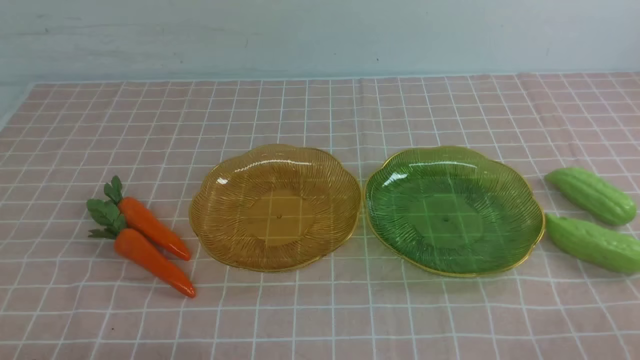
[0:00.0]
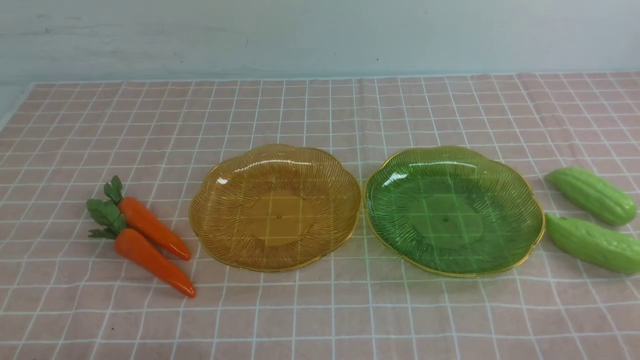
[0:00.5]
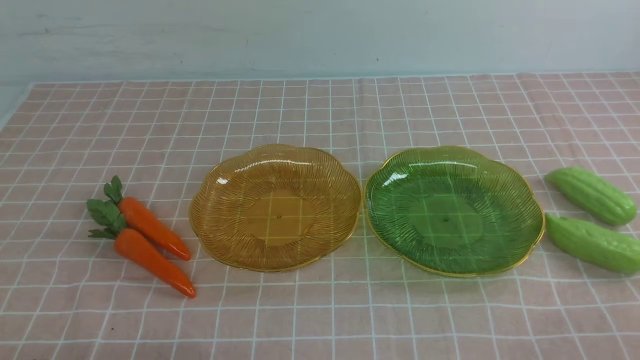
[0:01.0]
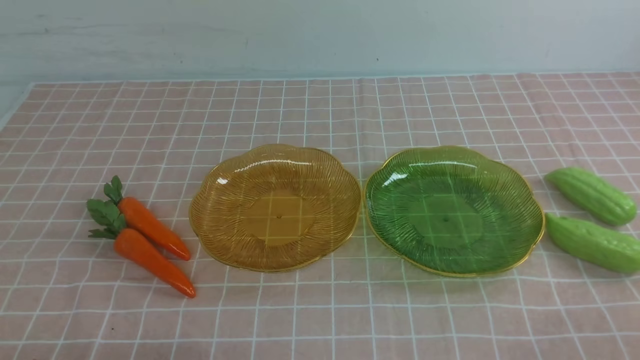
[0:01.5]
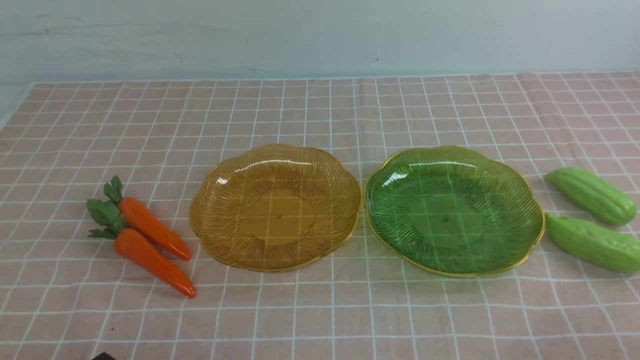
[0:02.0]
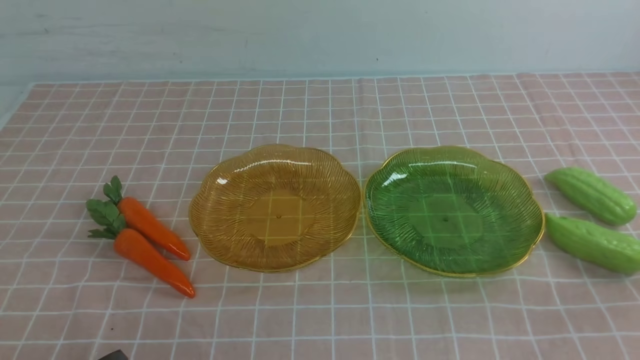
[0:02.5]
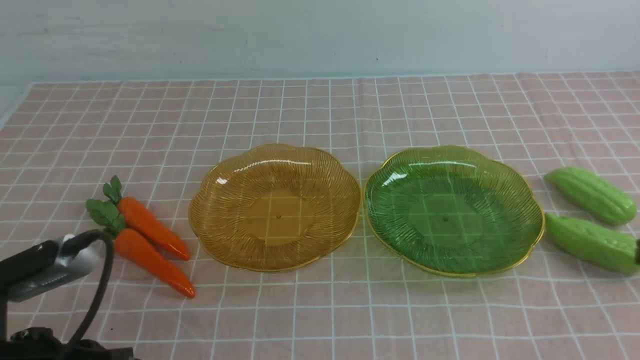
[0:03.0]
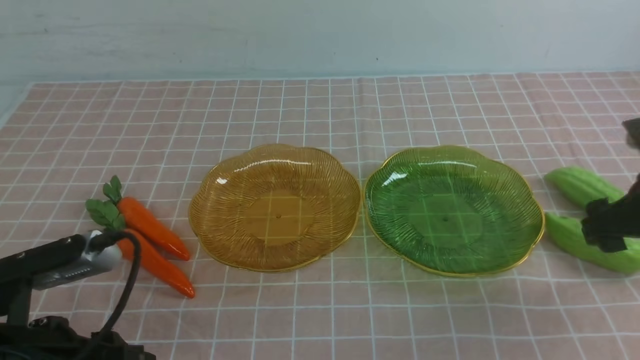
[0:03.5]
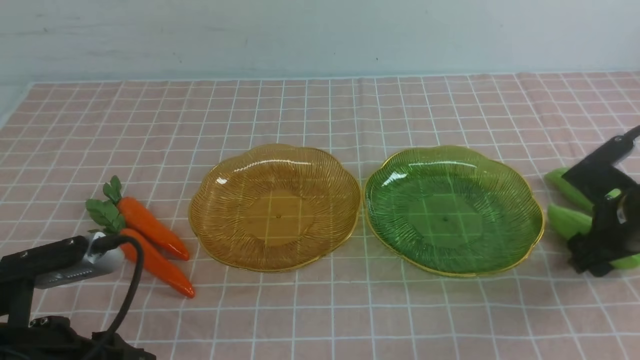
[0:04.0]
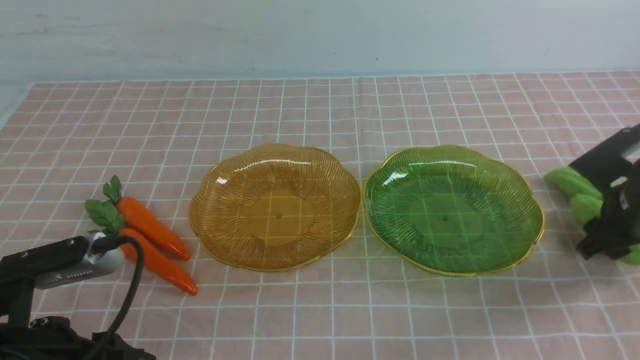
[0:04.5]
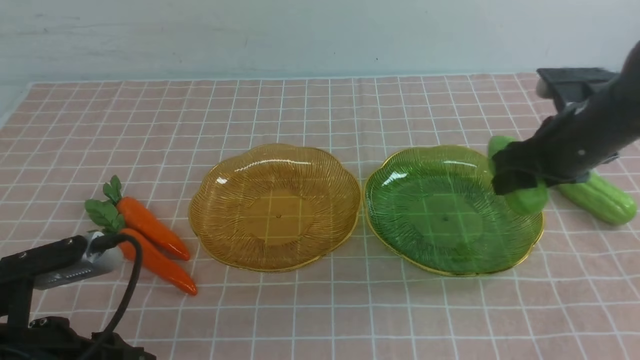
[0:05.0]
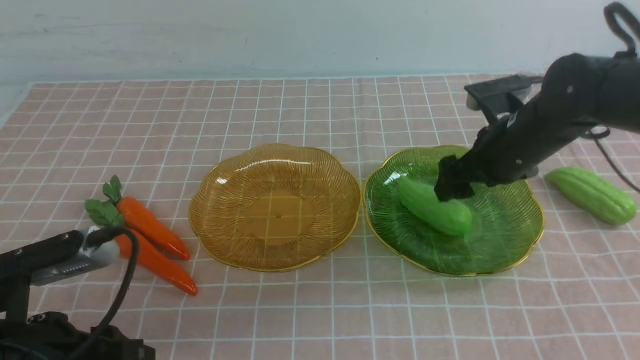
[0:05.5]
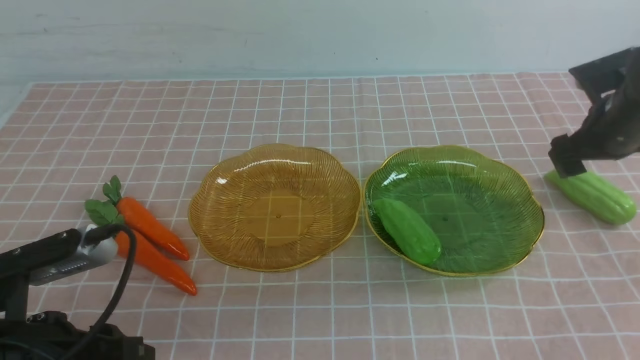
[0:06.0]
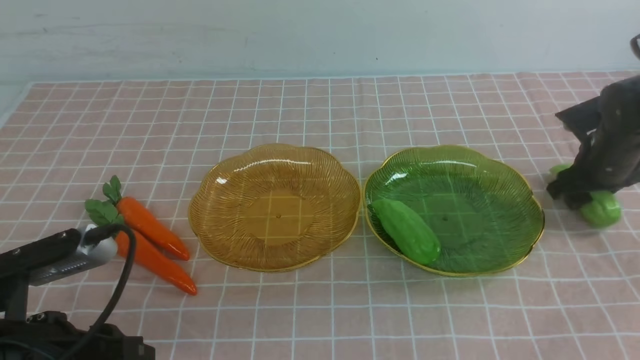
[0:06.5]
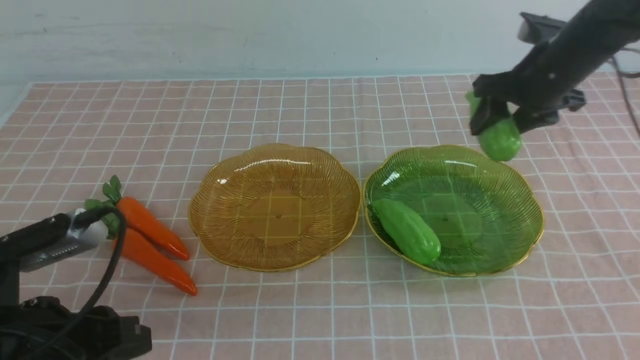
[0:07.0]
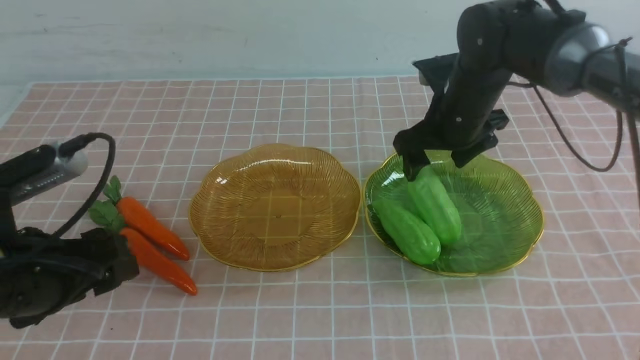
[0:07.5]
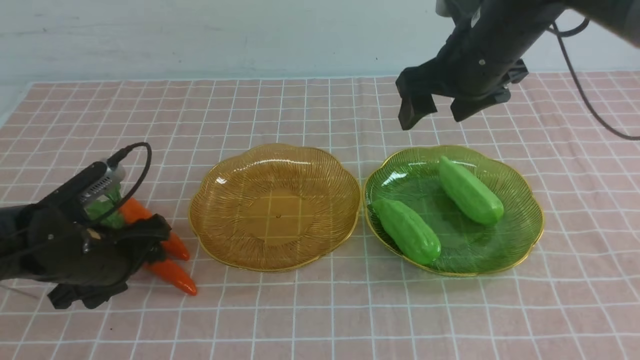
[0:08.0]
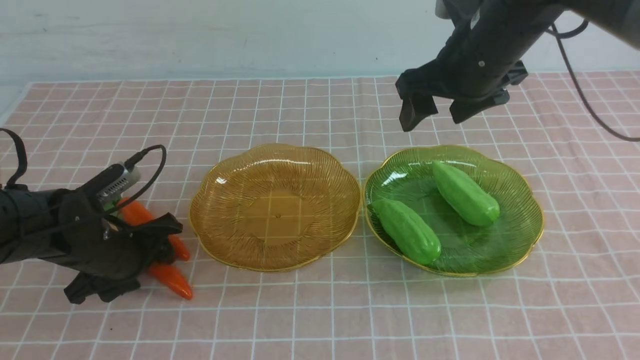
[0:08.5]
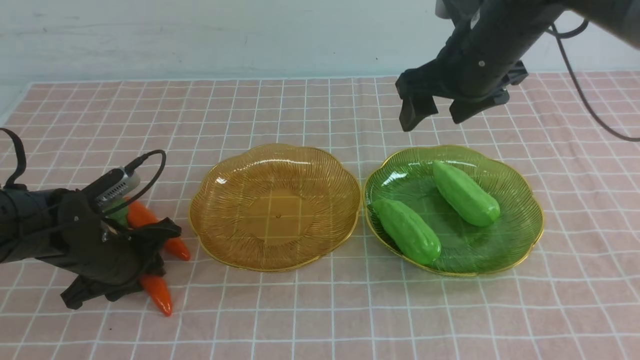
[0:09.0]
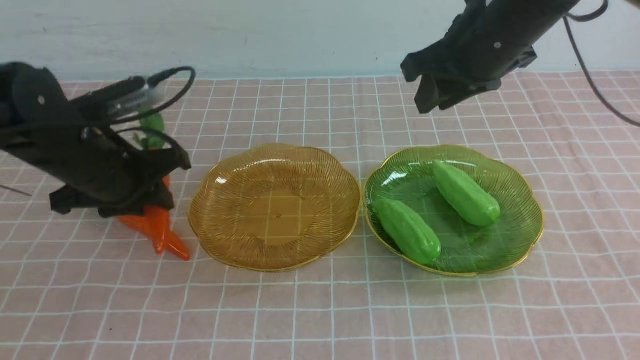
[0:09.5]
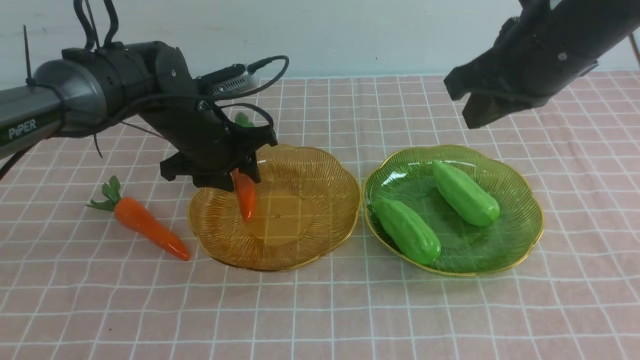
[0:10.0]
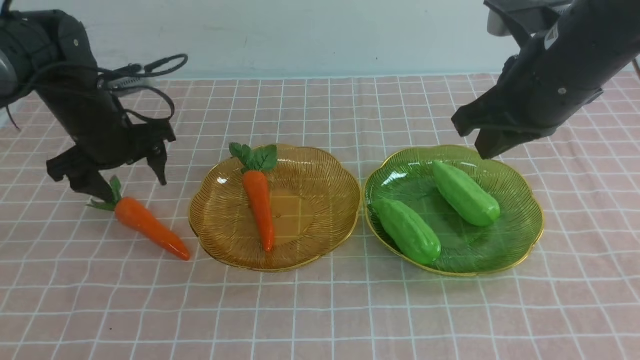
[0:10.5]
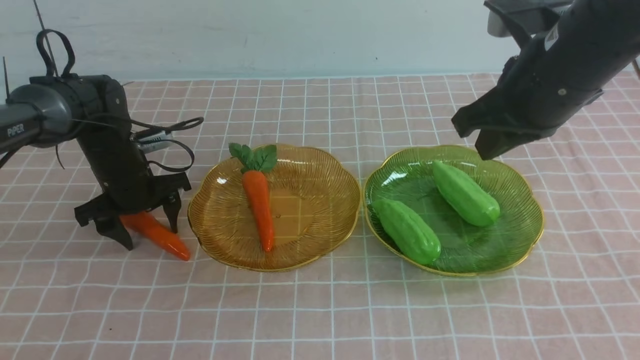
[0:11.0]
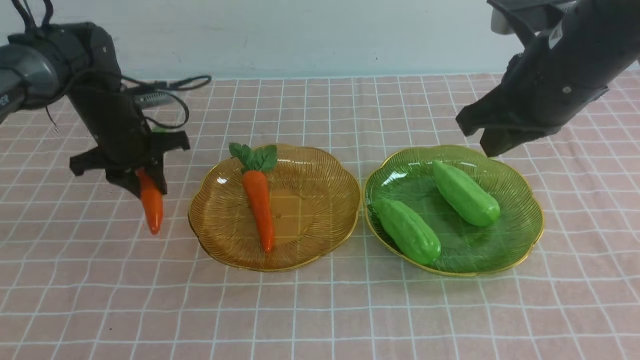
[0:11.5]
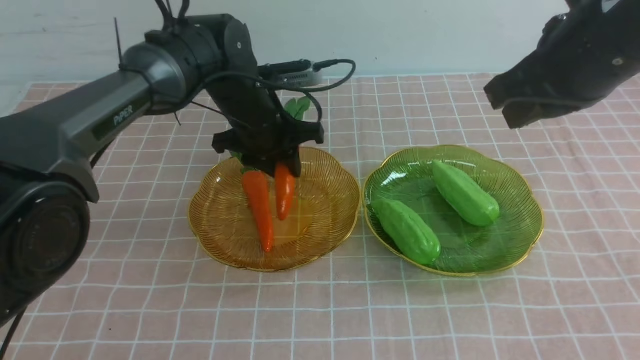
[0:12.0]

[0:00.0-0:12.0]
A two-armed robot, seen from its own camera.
Step, 0:00.0 to 0:05.0: use the right arm to grab a chayote and put it into the right plate.
Step, 0:06.0 to 0:07.0: use the right arm to grab a chayote and put it into the right plate.
0:02.0 to 0:04.0: The right gripper moves forward, some 25 cm, and opens, while the left gripper travels forward and upward by some 10 cm, and opens its fingers.
0:04.0 to 0:06.0: The right gripper heads forward, covering approximately 10 cm, and goes to the left and returns, about 10 cm each way.
0:06.0 to 0:08.0: The right gripper goes some 20 cm to the left and upward, while the left gripper is displaced forward and downward by approximately 15 cm, and opens up.
0:08.0 to 0:10.0: The left gripper heads forward and upward, covering some 15 cm, and closes and opens again. Meanwhile the right gripper is displaced backward by approximately 10 cm, and closes its fingers.
0:10.0 to 0:12.0: The left gripper heads to the right, covering approximately 10 cm, and closes up. The right gripper goes some 20 cm backward and to the right.

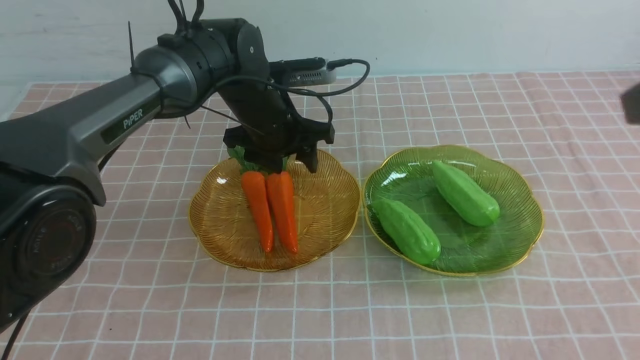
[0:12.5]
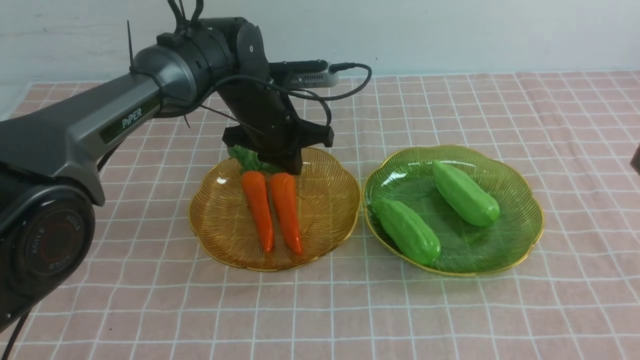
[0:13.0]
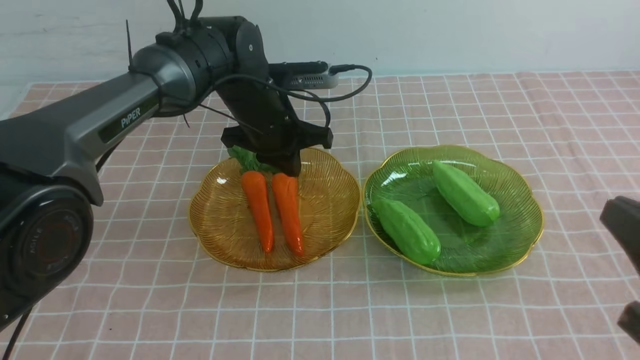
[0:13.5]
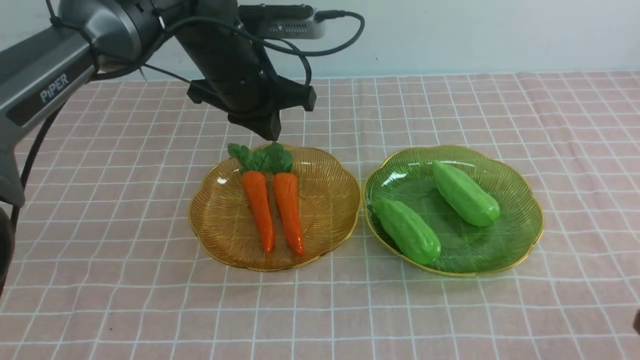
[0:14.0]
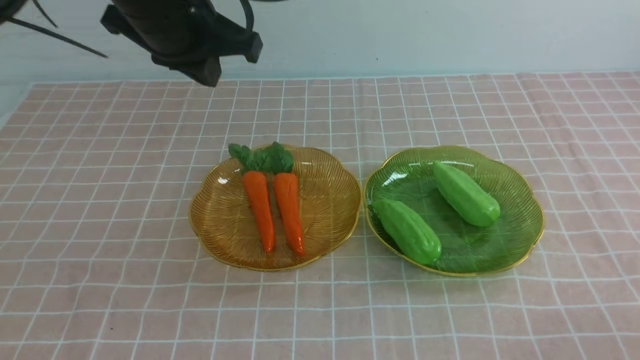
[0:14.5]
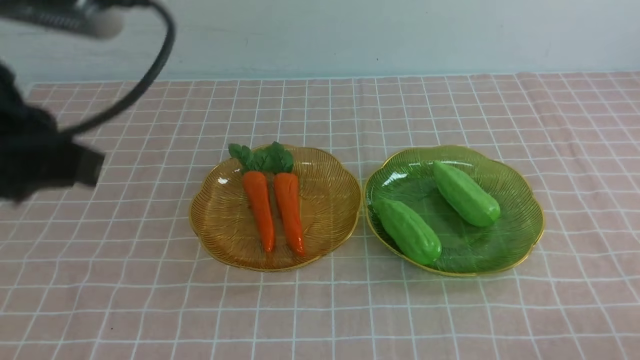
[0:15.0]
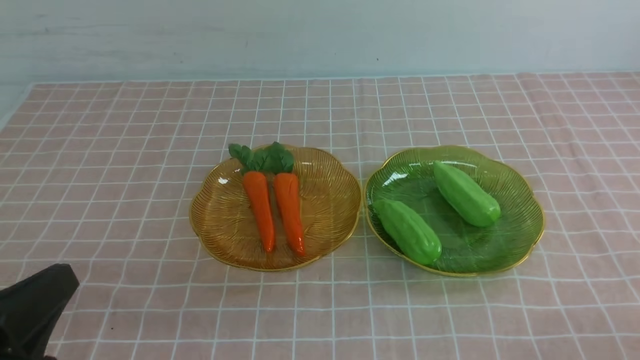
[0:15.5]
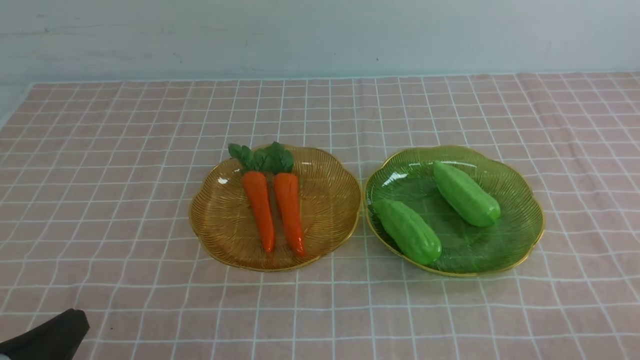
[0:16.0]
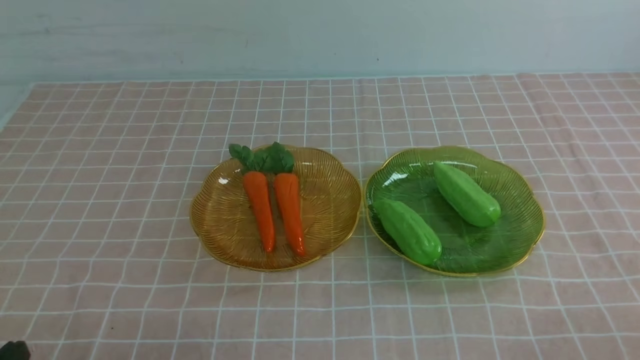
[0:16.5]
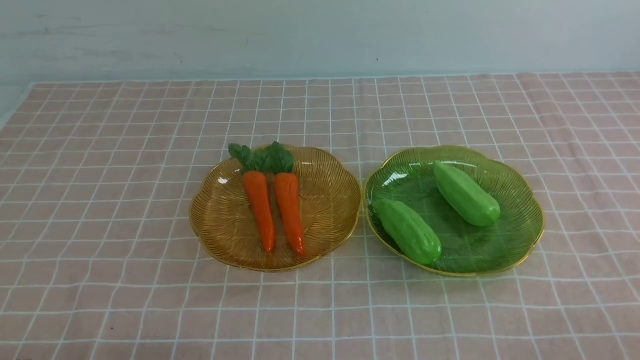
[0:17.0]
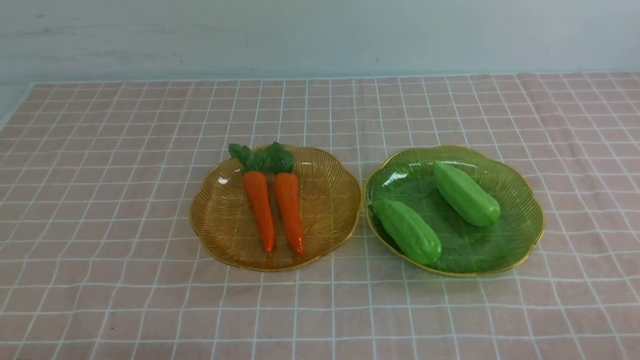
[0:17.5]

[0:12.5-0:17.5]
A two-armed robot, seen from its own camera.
0:12.5 to 0:15.0: The right gripper moves downward and backward, about 15 cm; the left gripper is displaced backward and to the left by roughly 40 cm.
0:15.0 to 0:17.5: The left gripper goes about 5 cm downward.

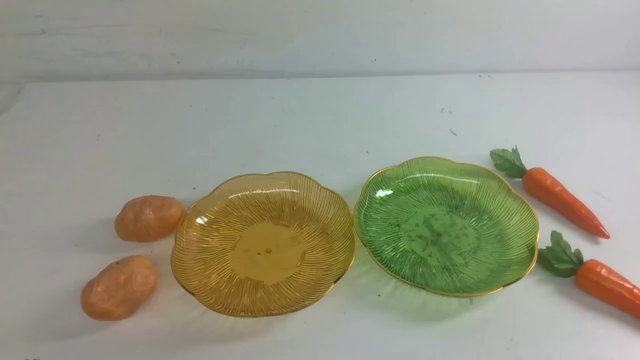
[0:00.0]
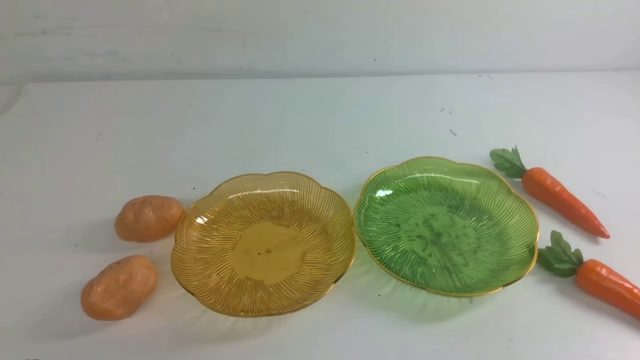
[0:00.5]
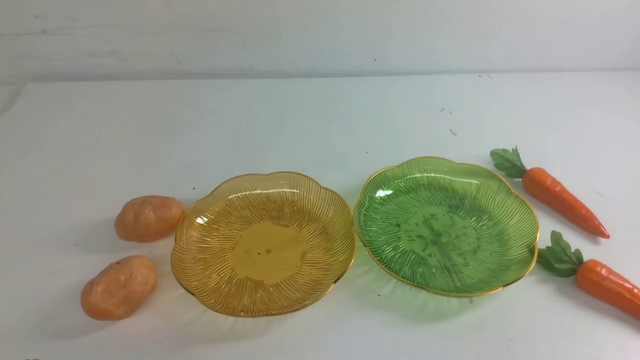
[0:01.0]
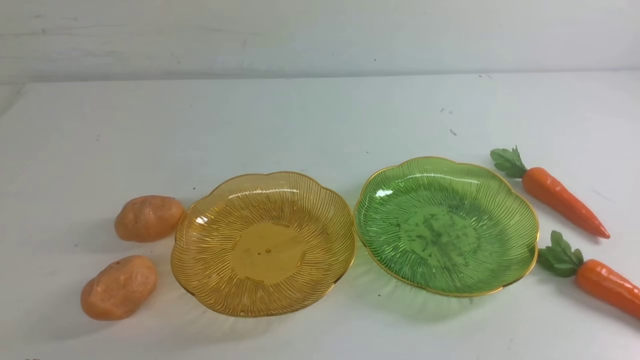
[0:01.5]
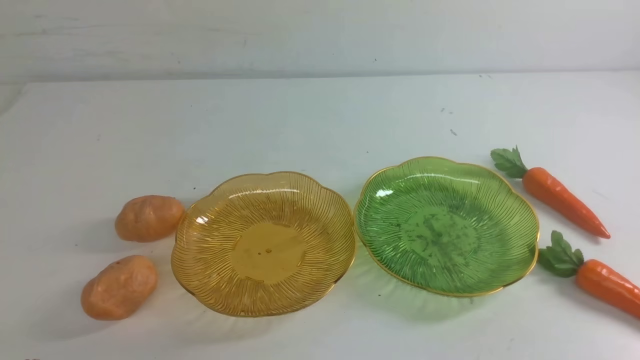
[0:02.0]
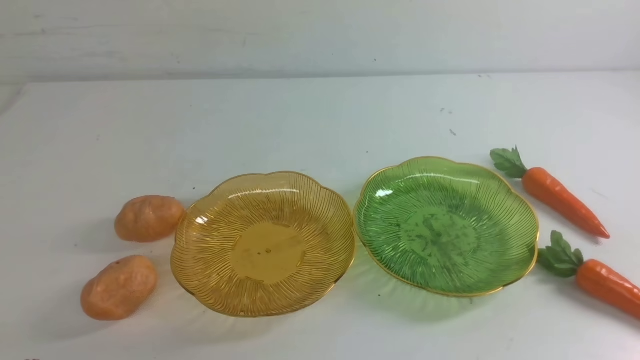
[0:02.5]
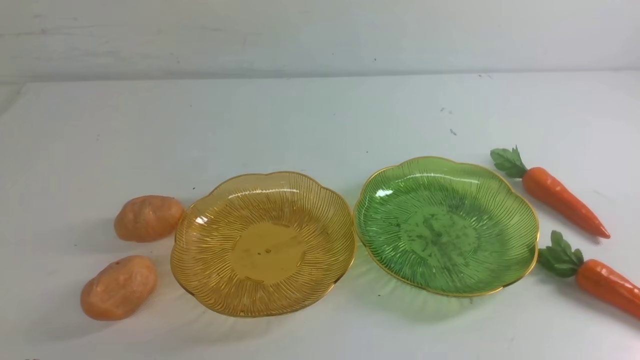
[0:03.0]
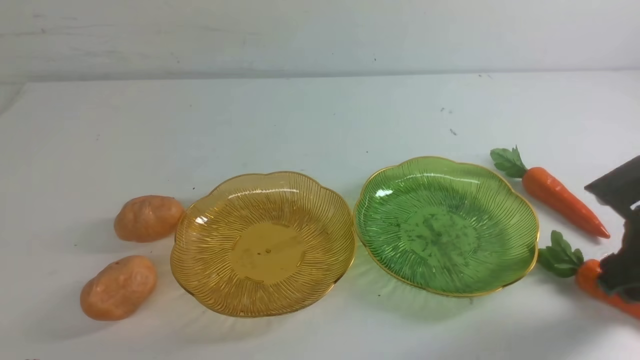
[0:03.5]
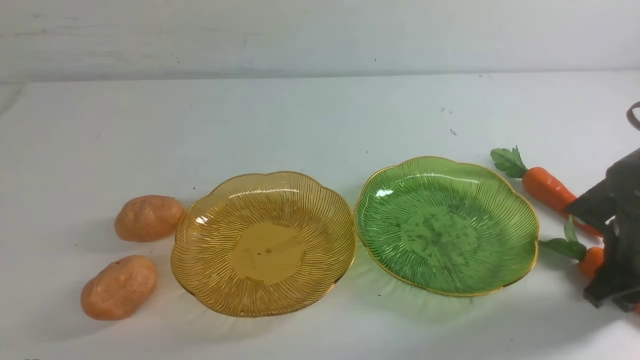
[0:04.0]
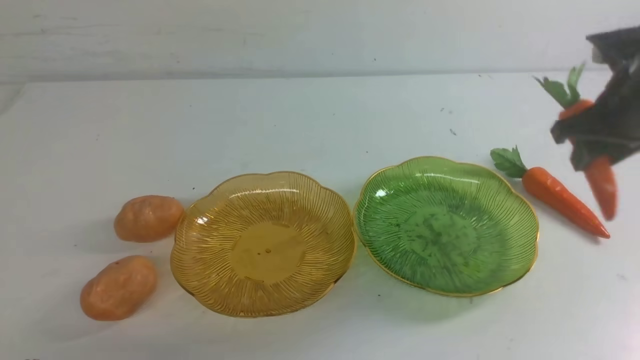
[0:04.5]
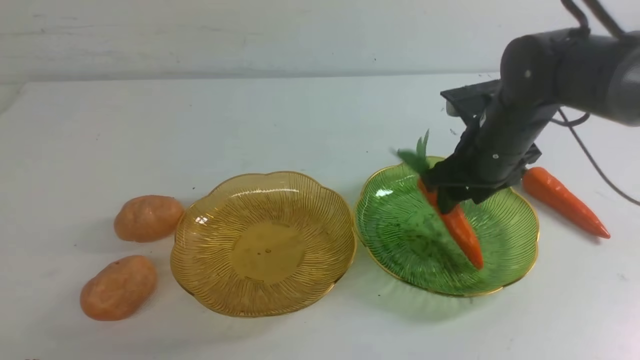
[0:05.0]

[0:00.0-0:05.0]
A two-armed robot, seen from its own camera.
0:02.5 to 0:05.0: The right gripper heads forward, covering some 30 cm, and opens up.
